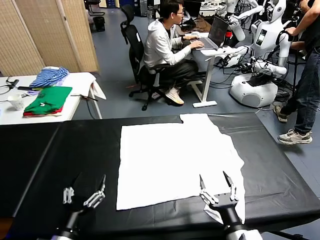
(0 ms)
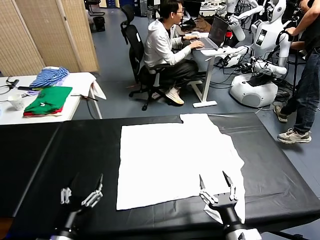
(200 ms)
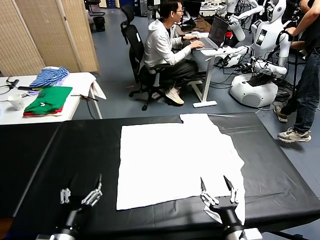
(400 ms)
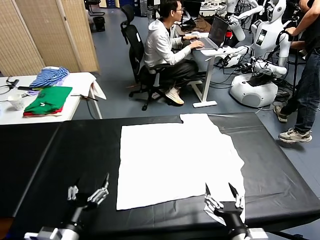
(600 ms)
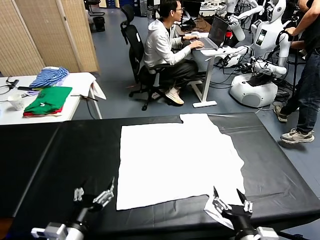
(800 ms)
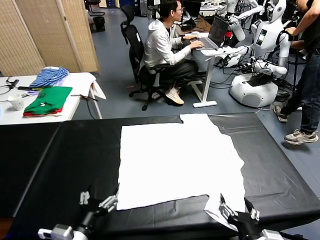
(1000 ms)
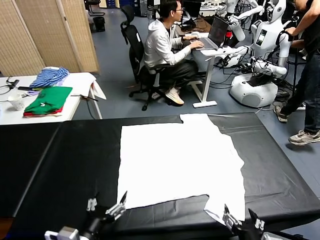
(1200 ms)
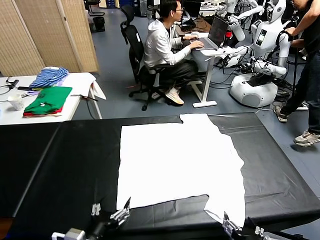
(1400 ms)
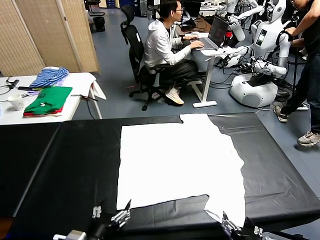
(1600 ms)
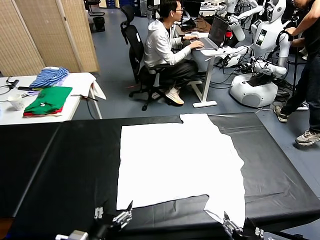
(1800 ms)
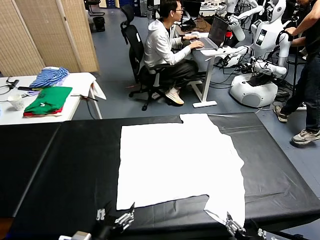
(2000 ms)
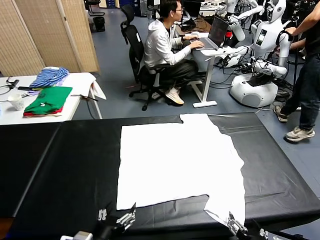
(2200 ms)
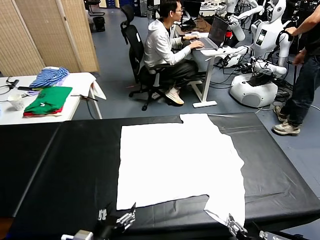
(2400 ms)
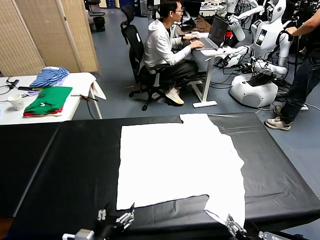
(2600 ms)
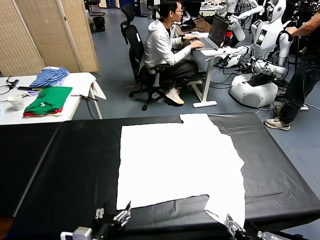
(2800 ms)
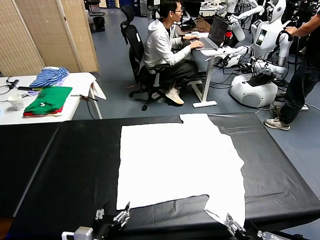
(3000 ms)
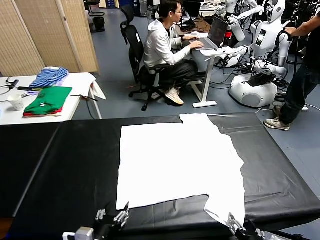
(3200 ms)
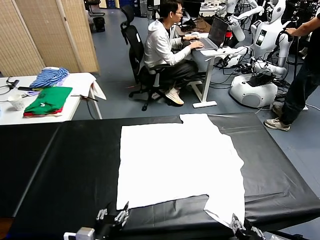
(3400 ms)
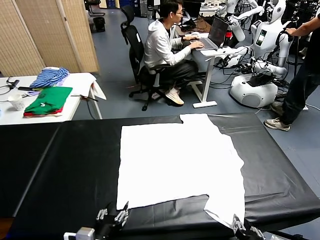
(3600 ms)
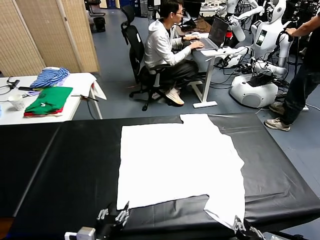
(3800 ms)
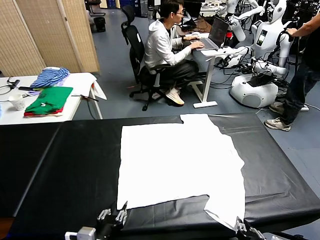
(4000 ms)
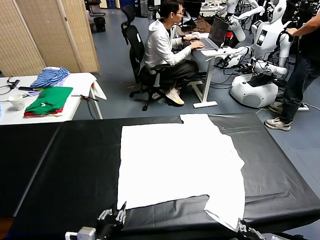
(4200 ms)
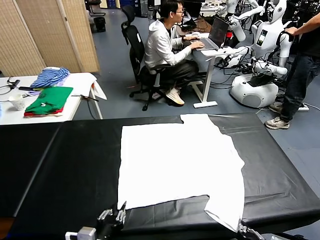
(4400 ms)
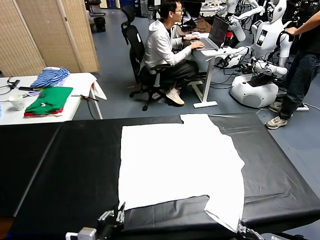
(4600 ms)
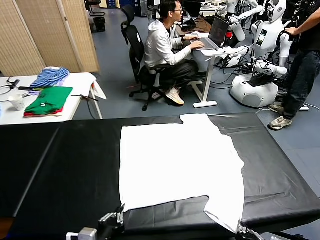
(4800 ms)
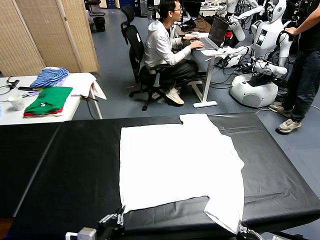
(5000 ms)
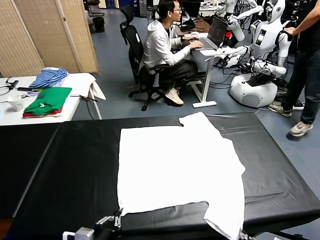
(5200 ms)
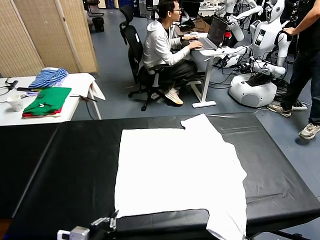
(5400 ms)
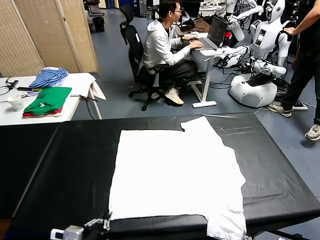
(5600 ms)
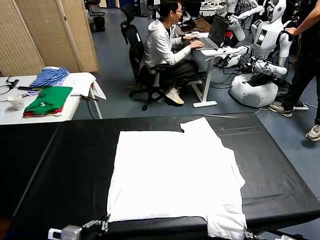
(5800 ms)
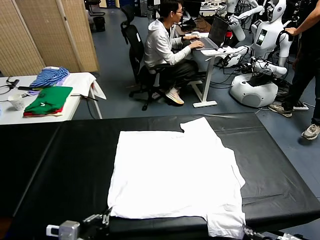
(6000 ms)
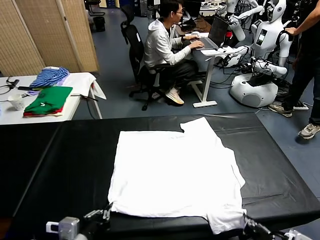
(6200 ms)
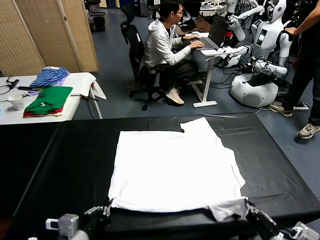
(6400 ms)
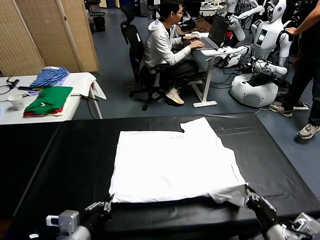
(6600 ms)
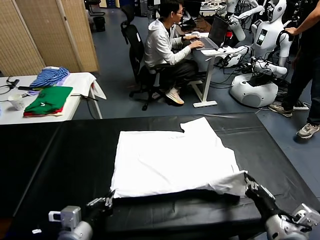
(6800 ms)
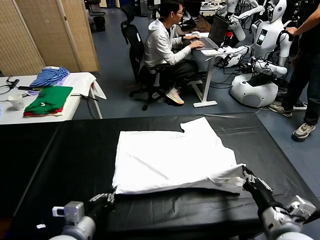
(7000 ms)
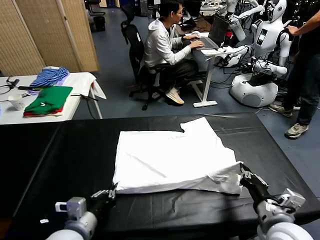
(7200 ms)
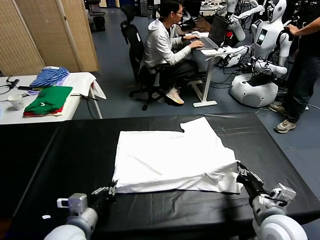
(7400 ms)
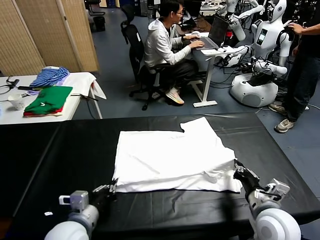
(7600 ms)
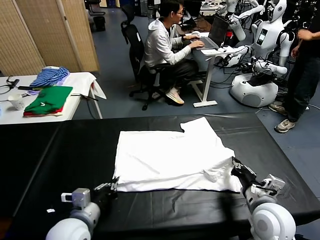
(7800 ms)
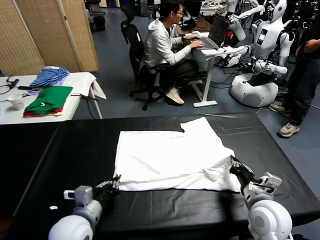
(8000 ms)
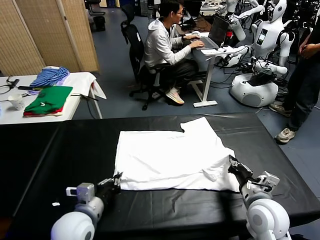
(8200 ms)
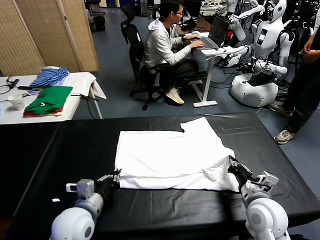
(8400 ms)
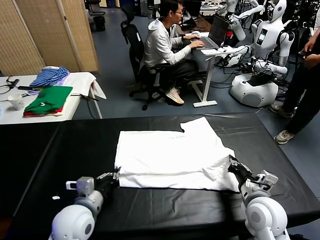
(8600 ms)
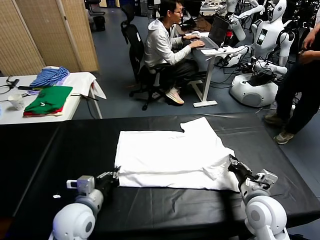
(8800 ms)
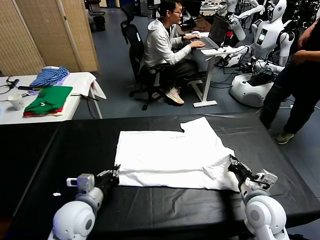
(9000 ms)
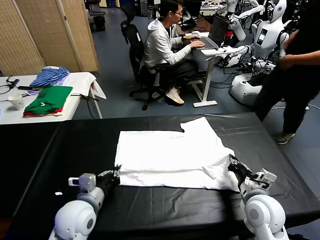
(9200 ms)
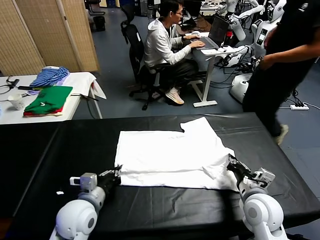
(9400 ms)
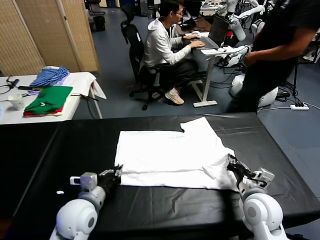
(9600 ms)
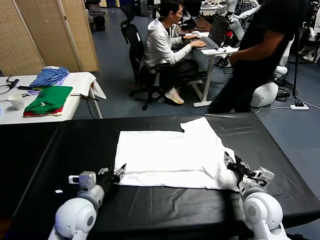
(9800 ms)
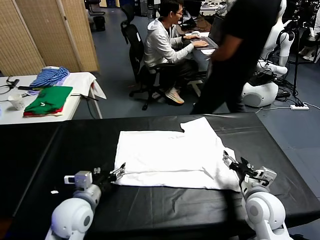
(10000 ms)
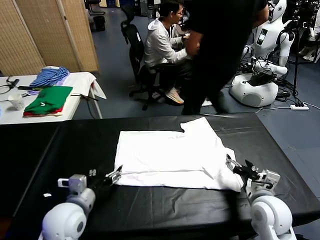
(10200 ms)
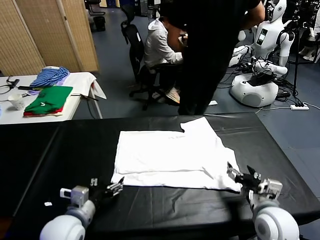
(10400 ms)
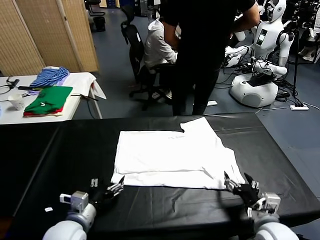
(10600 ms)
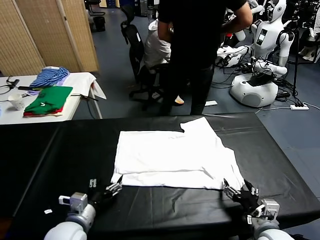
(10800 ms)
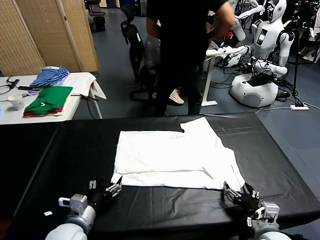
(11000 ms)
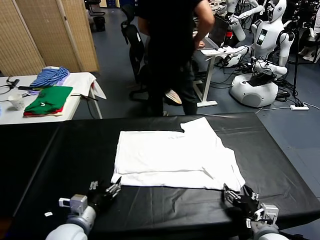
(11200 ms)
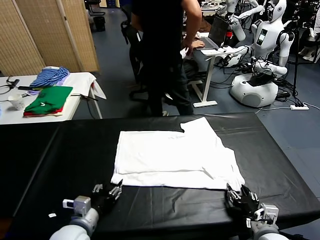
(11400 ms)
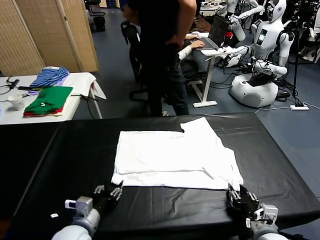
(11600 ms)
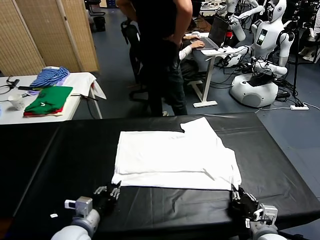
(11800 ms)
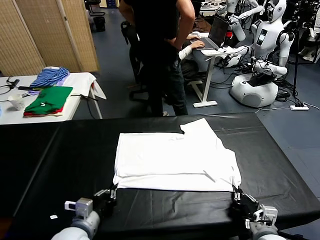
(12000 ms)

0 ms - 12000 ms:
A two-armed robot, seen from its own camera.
Task of the whole recording: fold and organize the clothes.
Step, 0 ms - 5600 ms: use both grippers simultaneously to clamp the lower edge of the clothing fabric.
Step, 5800 ms - 10000 ms: use both grippers to drag the lower edge of the fabric forward and fold it over the upper edge.
1600 ms - 3000 ms: The right gripper closes its fingers.
3000 ms - 4400 ms: The left gripper closes. The right gripper closes.
4400 ms - 6000 ms: The two grippers go roughly 5 cm upward.
6000 ms - 7600 ms: The right gripper is displaced forward and downward by roughly 15 cm; the left gripper heads forward, covering some 10 cm.
7600 ms - 9000 ms: The grippers move only a little.
9000 ms - 10400 ms: The left gripper changes place by about 5 cm, and opens; the right gripper goes some 10 cm backward, and opens.
10400 ms - 12000 ms: The right gripper closes, while the left gripper closes.

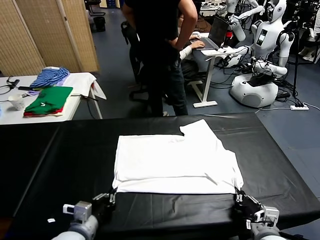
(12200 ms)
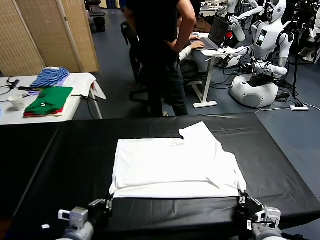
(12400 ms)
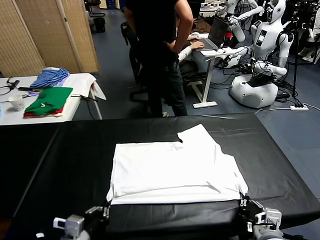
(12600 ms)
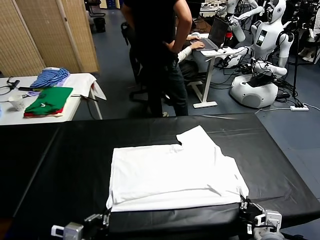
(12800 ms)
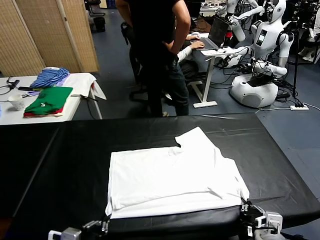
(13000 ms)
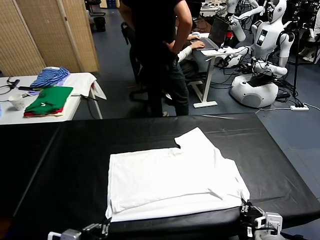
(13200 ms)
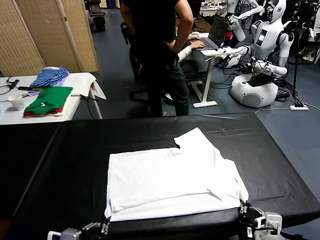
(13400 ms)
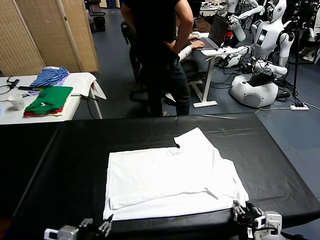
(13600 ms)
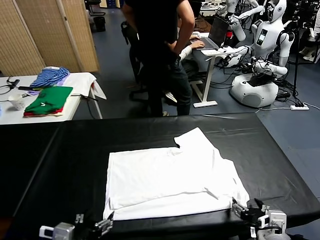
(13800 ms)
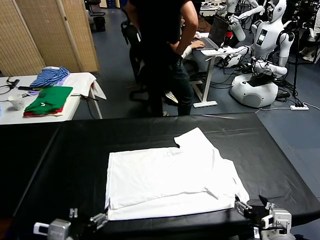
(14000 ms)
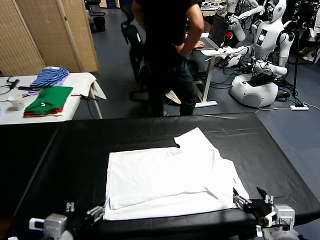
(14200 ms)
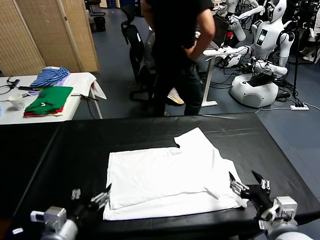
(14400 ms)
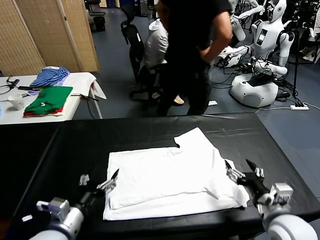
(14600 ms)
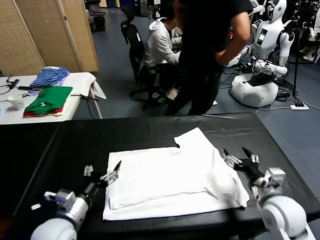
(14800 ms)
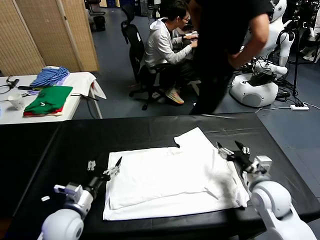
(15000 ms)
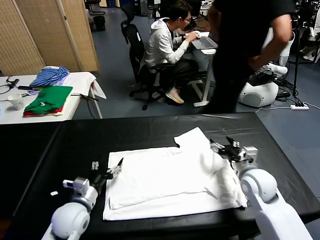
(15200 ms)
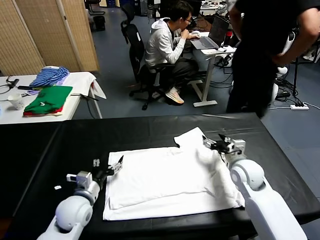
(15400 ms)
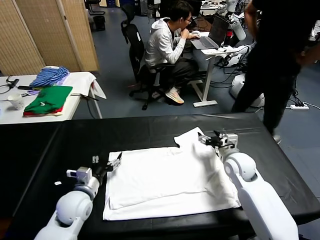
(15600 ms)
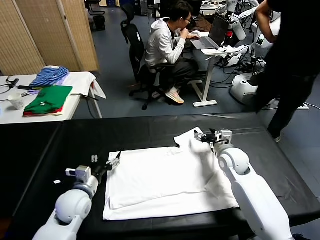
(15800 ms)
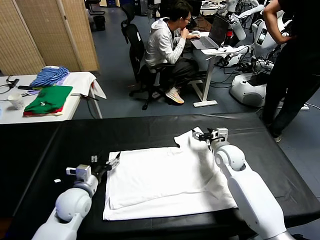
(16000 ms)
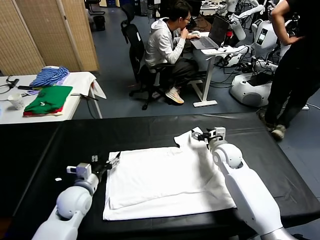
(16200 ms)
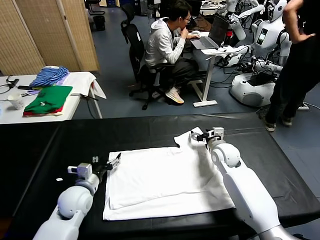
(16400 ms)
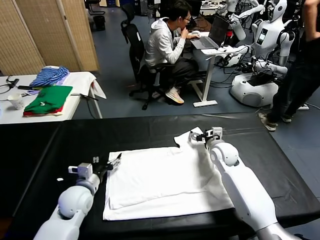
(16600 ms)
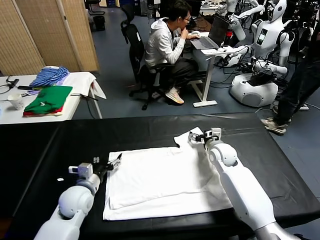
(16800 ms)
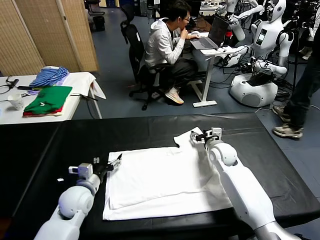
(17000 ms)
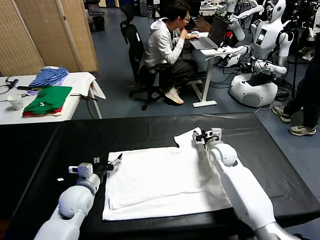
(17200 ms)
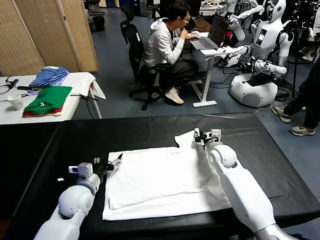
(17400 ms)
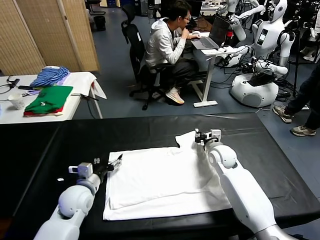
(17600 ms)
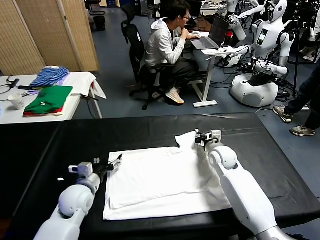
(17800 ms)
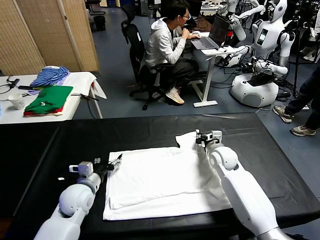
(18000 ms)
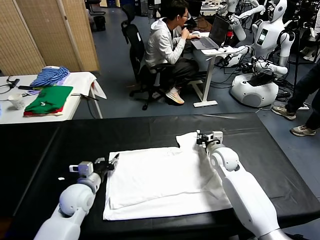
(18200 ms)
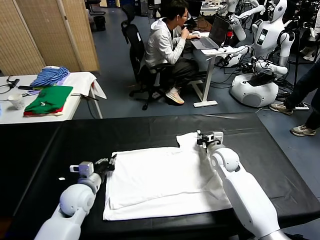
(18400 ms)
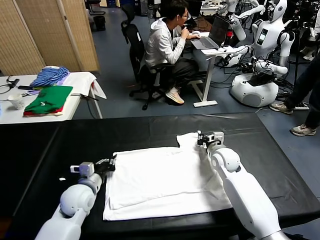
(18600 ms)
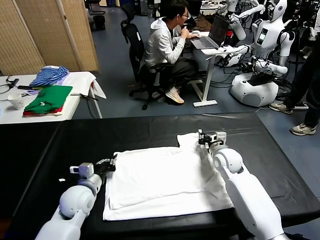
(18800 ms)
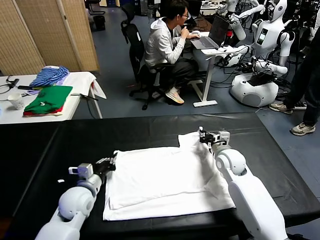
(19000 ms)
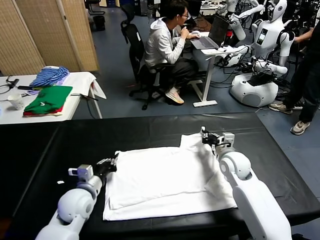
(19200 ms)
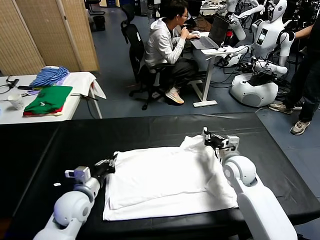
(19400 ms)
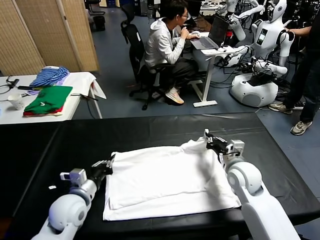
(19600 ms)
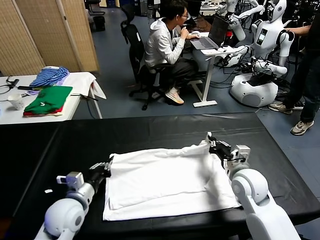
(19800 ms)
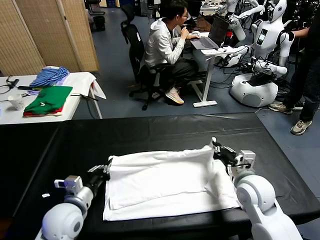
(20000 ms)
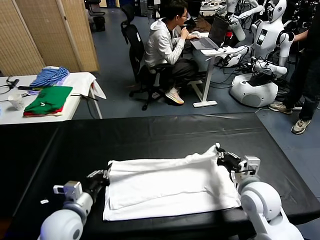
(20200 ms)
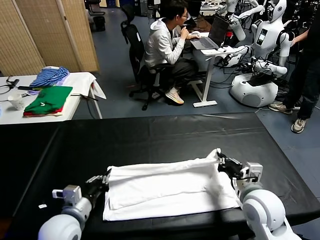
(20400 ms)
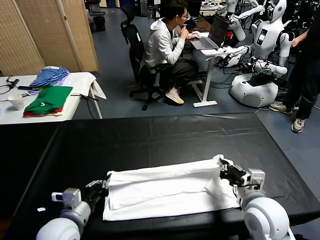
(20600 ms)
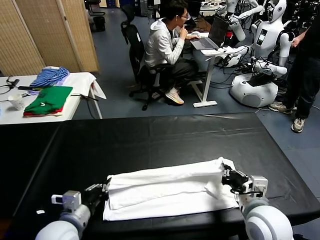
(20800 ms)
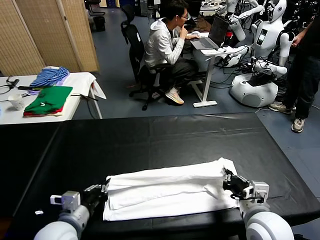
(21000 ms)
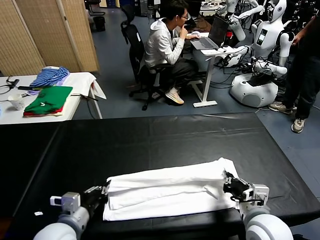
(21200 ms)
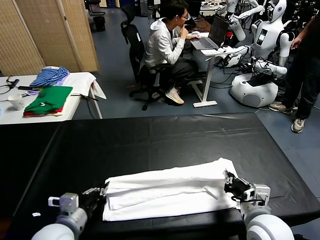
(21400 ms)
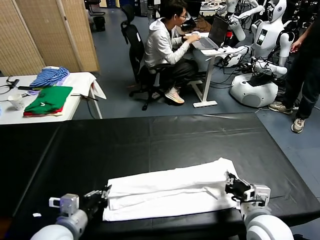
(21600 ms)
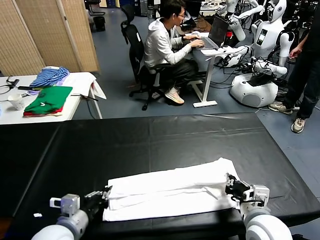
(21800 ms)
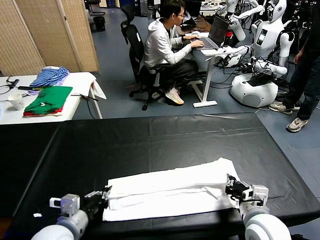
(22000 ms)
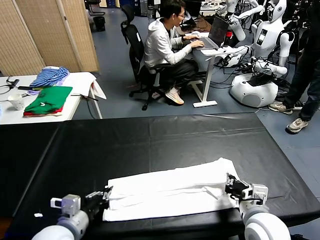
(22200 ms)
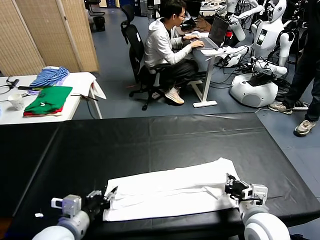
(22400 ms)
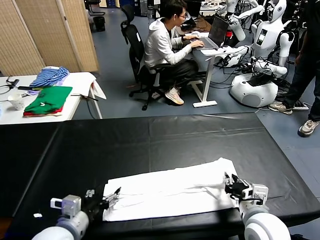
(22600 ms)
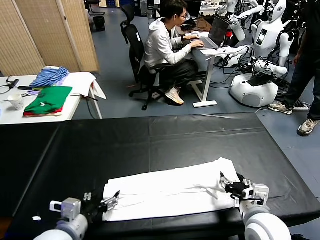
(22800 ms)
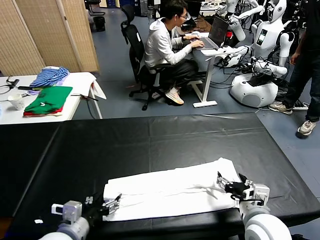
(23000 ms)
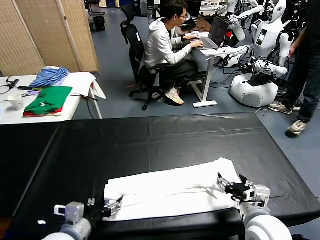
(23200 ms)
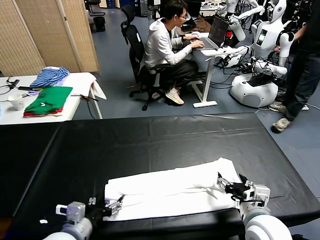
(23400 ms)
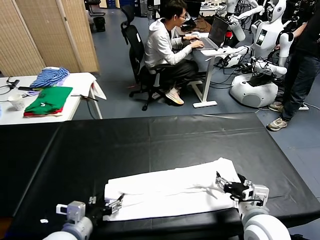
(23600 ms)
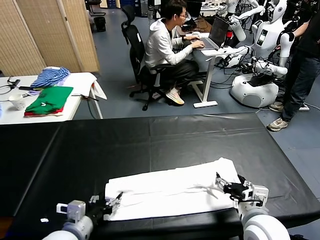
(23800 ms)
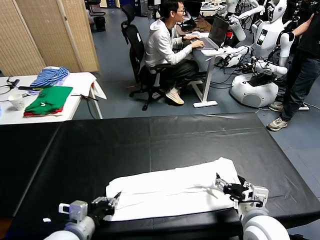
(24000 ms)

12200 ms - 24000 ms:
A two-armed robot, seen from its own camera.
Task of the whole recording: fold and organize the clothes.
Step, 14200 ms - 18600 ms: use both grippers simultaneously to clamp the upper edge of the clothing fabric.
Step, 18800 ms - 22800 ms: use both grippers to drag the upper edge of the fabric backward and fold it over the lower edge.
Step, 23000 ms - 24000 ms: use the left gripper to clamp the left edge of the fabric.
12200 ms - 13600 ms: The right gripper moves upward, roughly 5 cm, and opens; the left gripper heads upward and backward, covering some 10 cm, and opens.
13600 ms - 15200 ms: The right gripper goes some 25 cm forward. The left gripper travels forward and downward by about 20 cm.
15200 ms - 16600 ms: The right gripper goes about 10 cm forward.
16600 ms - 18200 ms: The left gripper closes its fingers, while the right gripper closes.
18200 ms - 19600 ms: The right gripper shifts some 15 cm backward and upward, while the left gripper goes approximately 5 cm backward.
19600 ms - 21000 ms: The left gripper shifts approximately 5 cm backward; the right gripper heads backward, covering about 10 cm.
21000 ms - 22600 ms: The right gripper opens up. Meanwhile the left gripper opens.
22600 ms - 24000 ms: The left gripper closes up.
